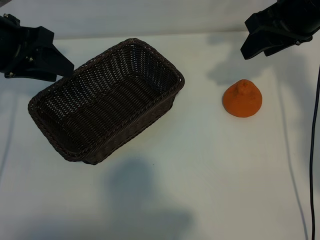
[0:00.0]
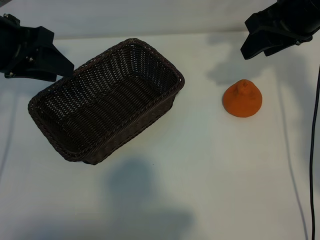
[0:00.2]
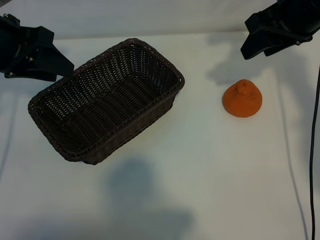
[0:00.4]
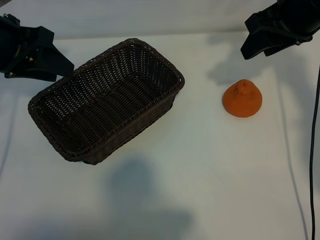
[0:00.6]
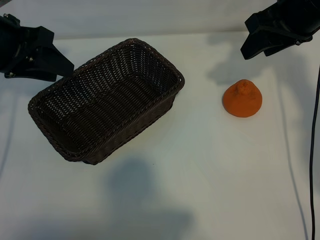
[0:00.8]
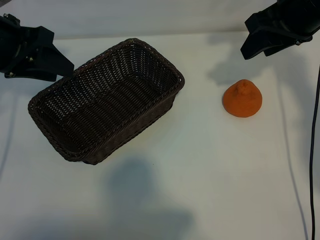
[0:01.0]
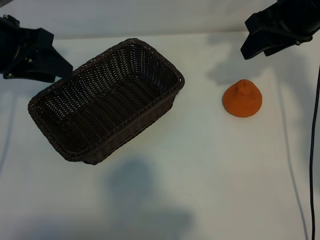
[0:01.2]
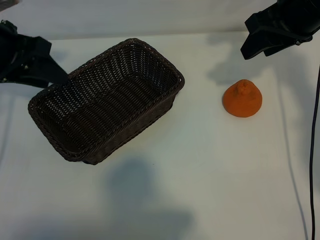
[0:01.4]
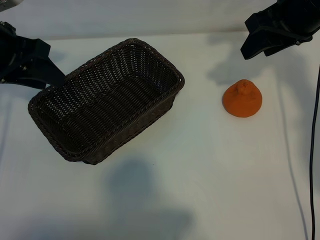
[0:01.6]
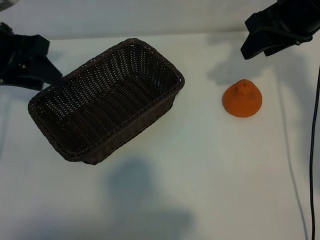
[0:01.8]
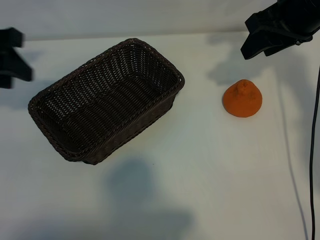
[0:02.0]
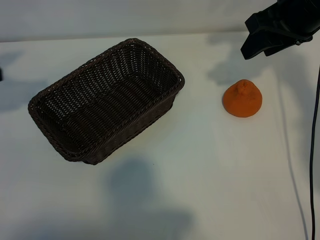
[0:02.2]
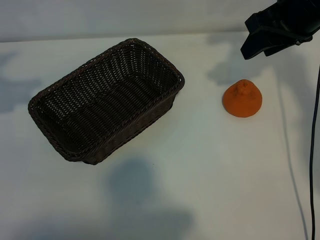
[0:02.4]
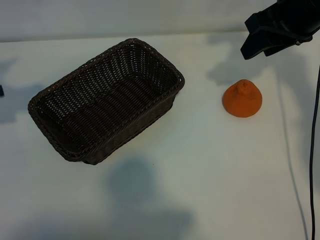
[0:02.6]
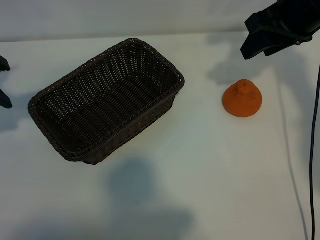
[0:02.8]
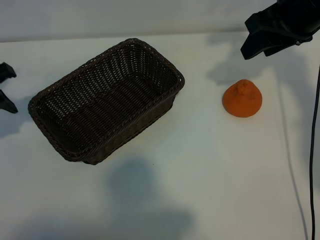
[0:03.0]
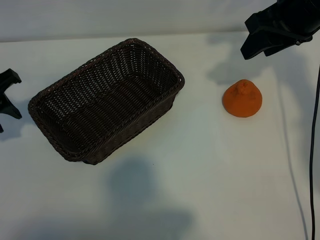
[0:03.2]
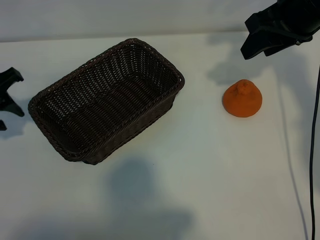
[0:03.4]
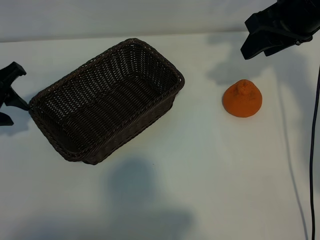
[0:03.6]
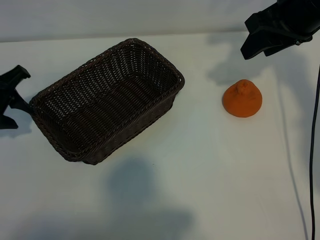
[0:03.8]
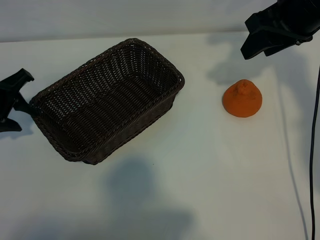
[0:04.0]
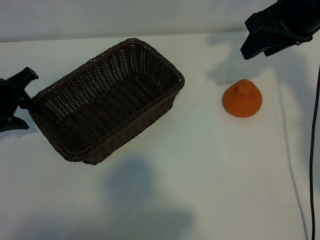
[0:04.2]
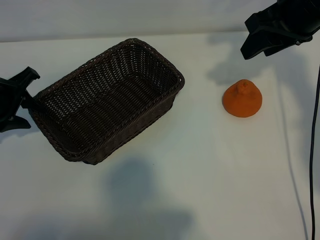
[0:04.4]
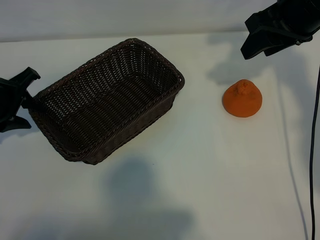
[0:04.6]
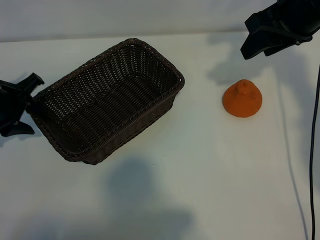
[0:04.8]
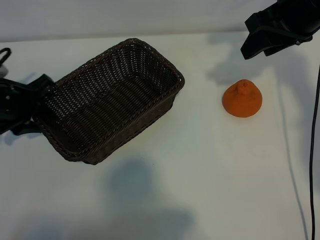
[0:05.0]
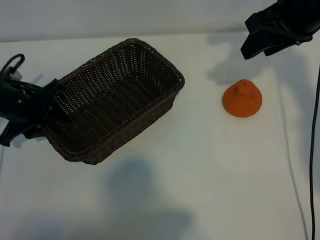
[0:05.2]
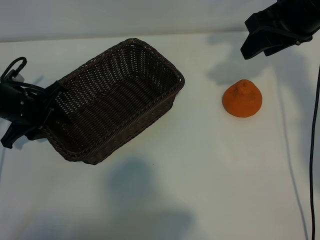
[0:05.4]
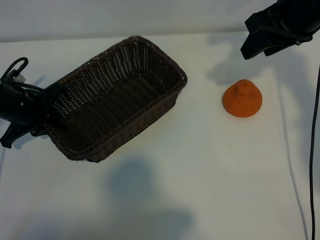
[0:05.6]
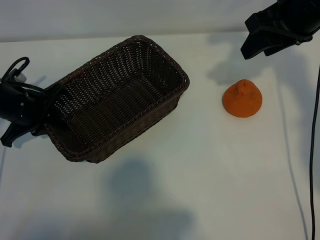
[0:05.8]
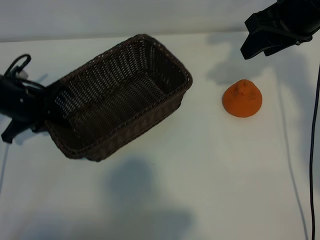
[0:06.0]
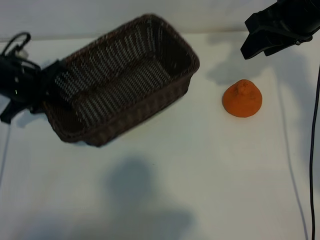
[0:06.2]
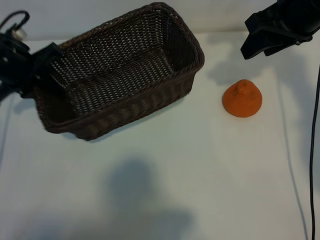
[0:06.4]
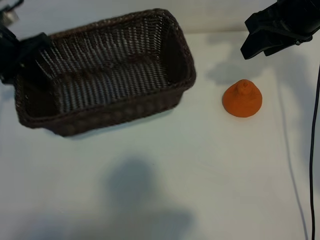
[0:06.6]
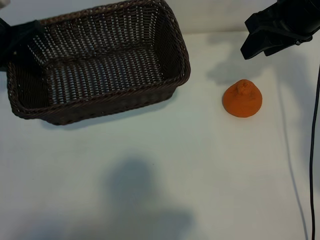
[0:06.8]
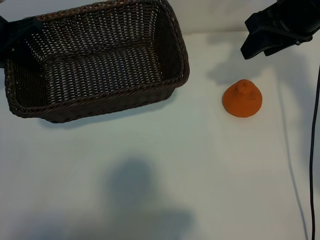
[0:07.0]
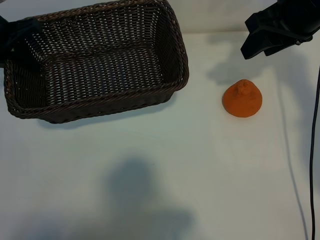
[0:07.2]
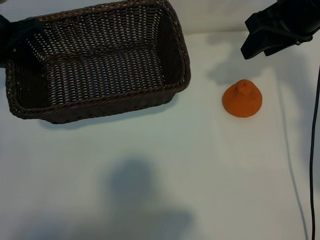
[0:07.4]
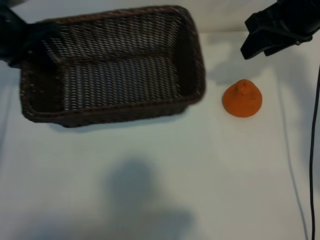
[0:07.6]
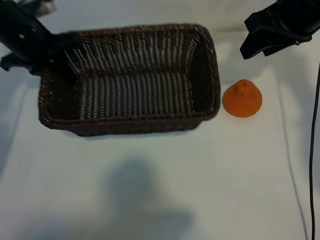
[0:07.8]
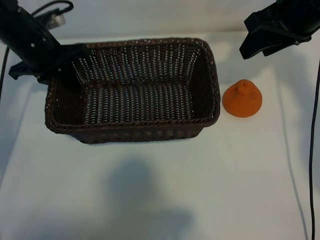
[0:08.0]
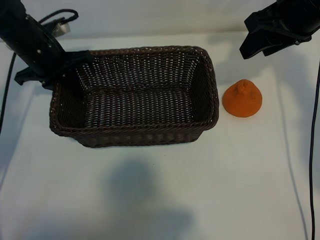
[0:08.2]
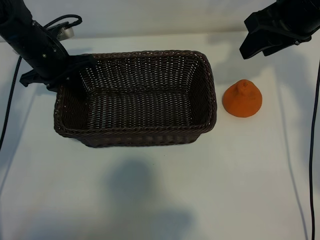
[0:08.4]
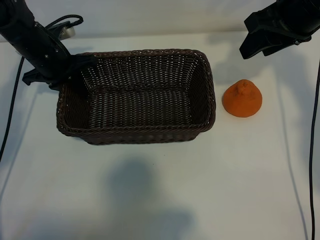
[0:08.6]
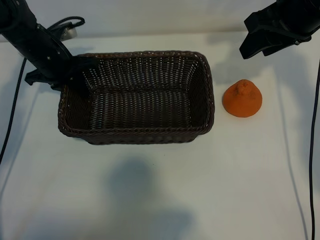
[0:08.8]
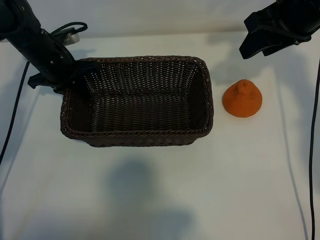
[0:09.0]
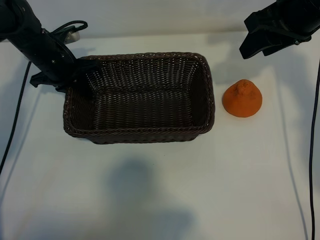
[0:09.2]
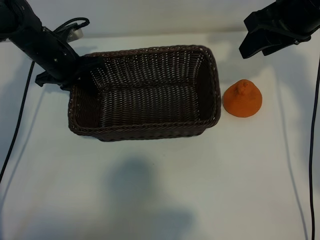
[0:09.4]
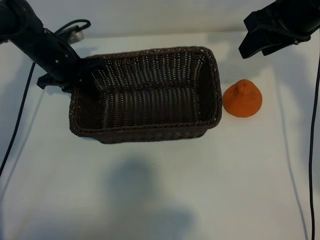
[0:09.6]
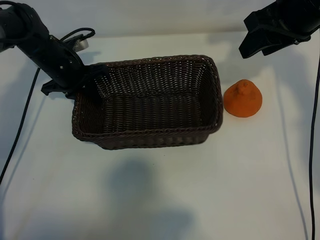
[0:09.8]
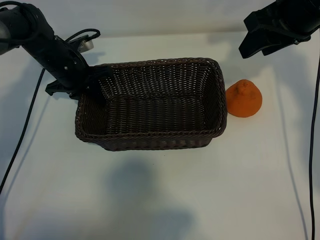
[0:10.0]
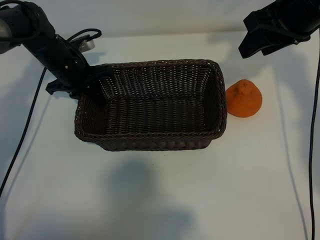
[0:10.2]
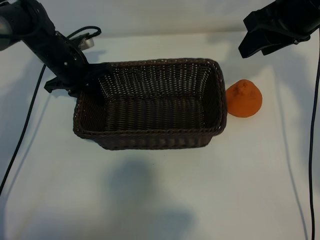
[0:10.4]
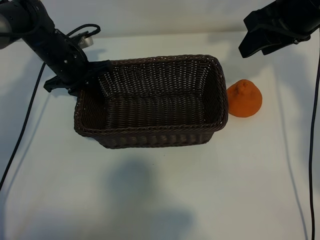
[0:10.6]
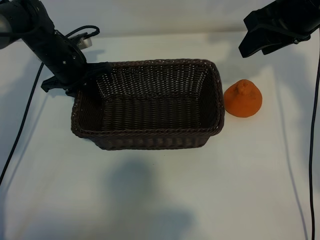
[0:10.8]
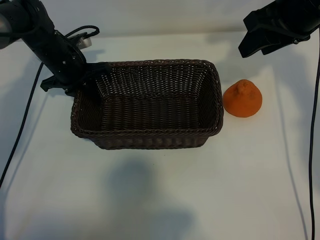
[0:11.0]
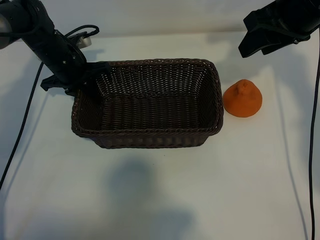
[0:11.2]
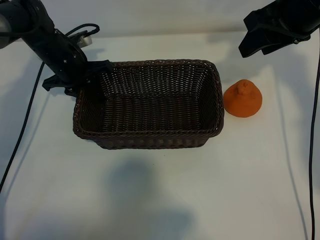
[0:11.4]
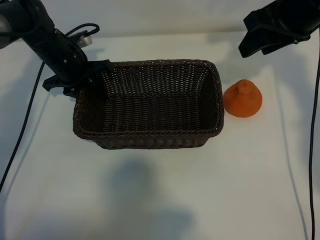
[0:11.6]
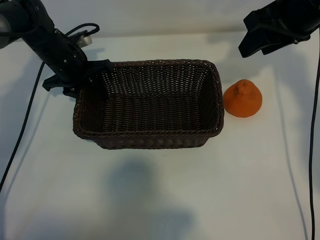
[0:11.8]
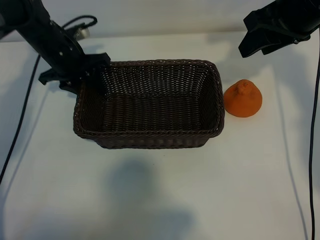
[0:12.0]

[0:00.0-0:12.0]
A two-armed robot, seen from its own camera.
Task of the whole recording: pick up the orange and put it into the basket.
Step, 0:01.2 to 0:05.6: Grasp the basket with left gripper.
Step, 0:05.8 to 0:11.6: Place the basket in the center of view with left gripper.

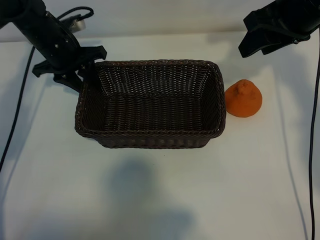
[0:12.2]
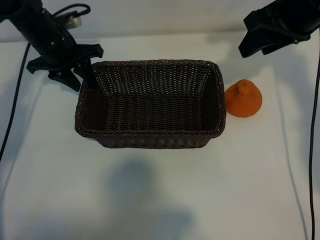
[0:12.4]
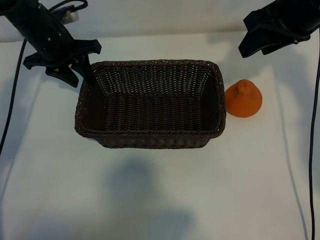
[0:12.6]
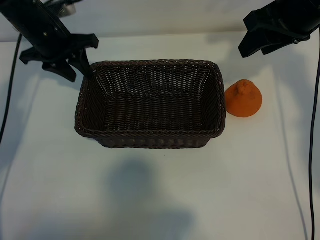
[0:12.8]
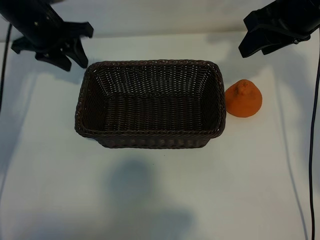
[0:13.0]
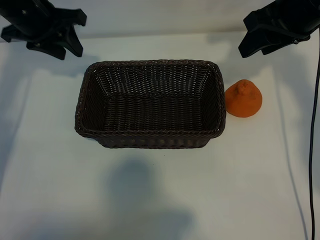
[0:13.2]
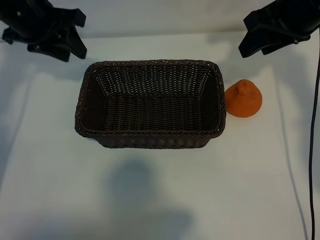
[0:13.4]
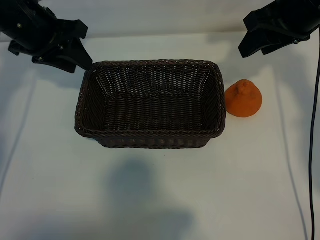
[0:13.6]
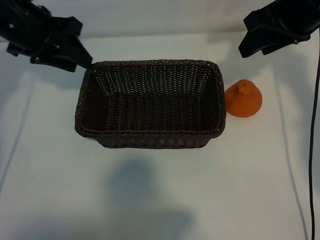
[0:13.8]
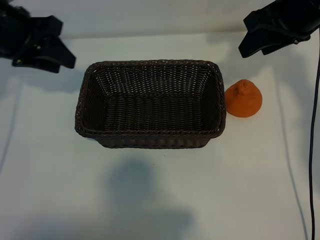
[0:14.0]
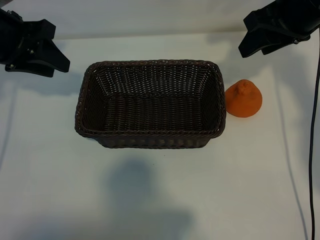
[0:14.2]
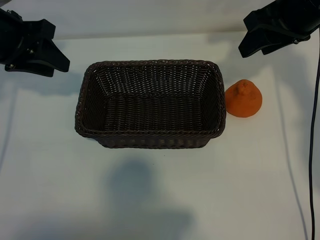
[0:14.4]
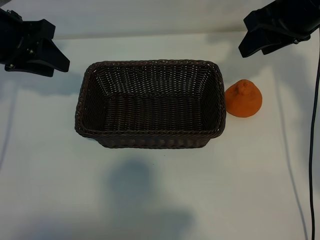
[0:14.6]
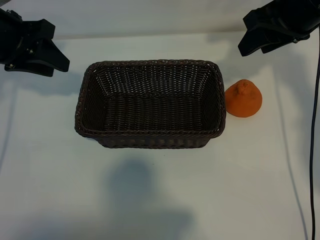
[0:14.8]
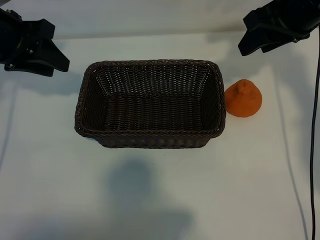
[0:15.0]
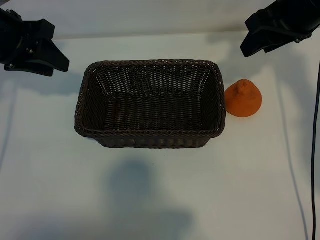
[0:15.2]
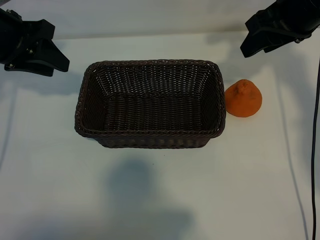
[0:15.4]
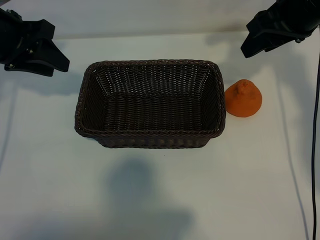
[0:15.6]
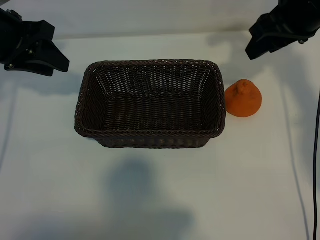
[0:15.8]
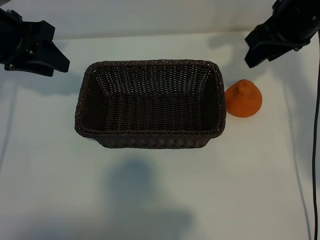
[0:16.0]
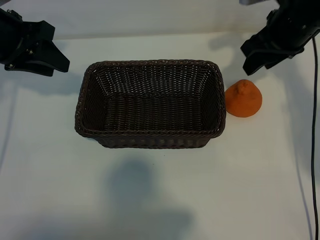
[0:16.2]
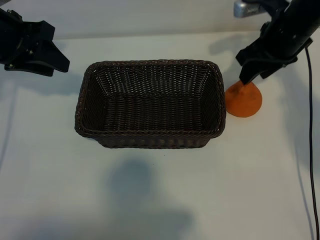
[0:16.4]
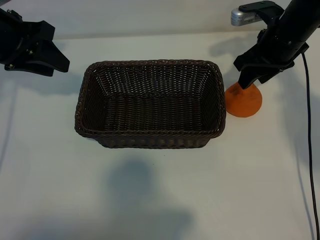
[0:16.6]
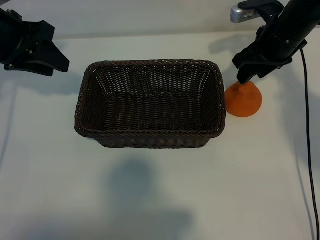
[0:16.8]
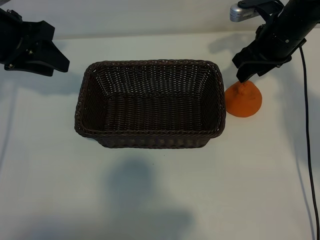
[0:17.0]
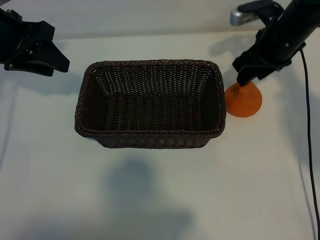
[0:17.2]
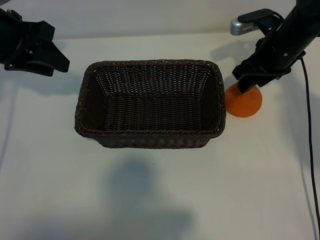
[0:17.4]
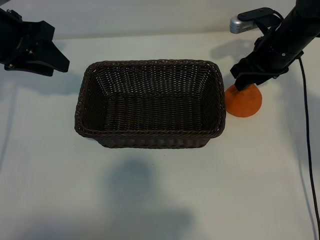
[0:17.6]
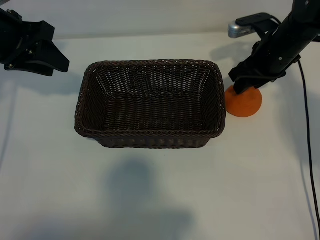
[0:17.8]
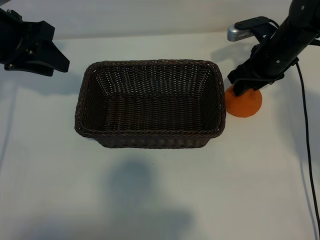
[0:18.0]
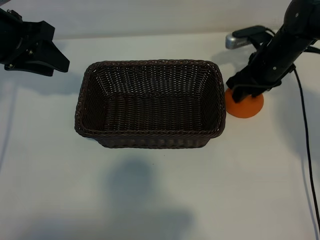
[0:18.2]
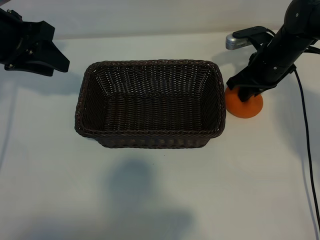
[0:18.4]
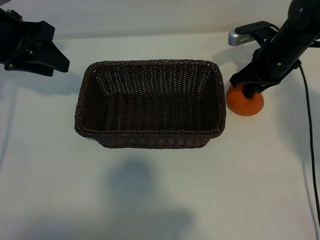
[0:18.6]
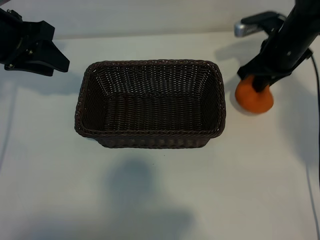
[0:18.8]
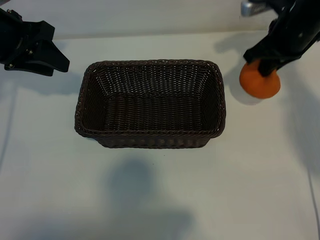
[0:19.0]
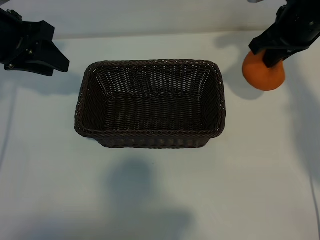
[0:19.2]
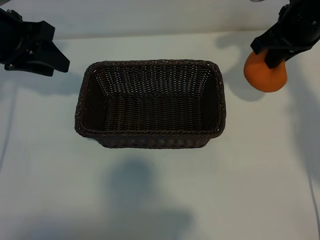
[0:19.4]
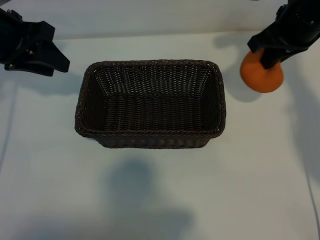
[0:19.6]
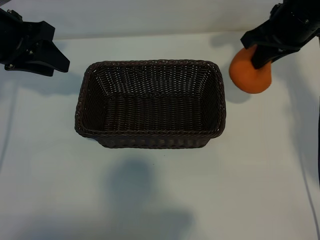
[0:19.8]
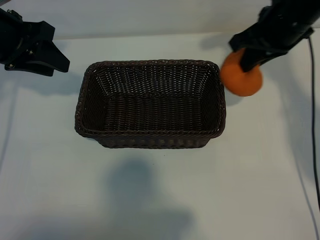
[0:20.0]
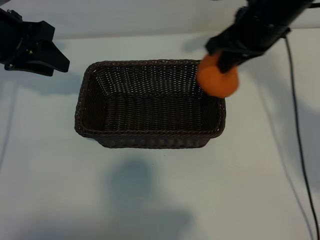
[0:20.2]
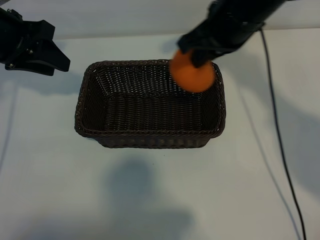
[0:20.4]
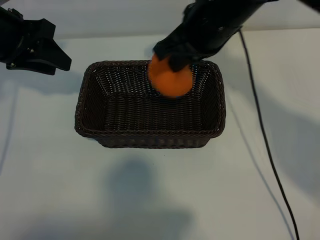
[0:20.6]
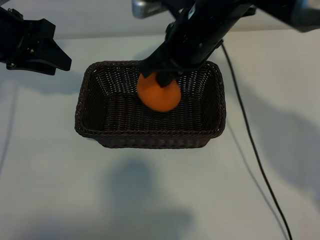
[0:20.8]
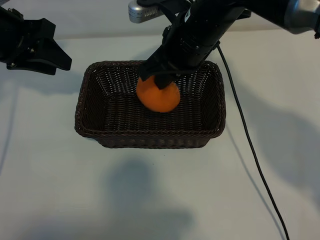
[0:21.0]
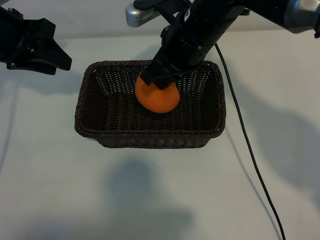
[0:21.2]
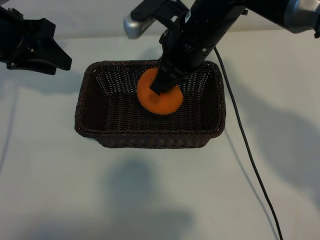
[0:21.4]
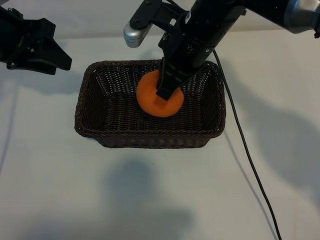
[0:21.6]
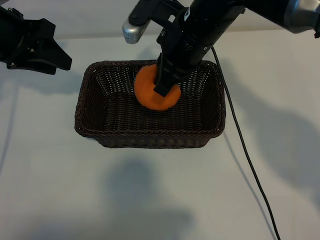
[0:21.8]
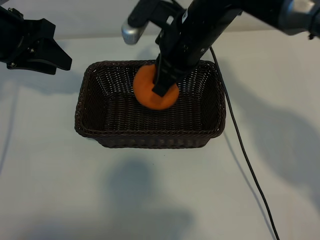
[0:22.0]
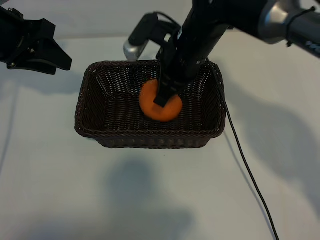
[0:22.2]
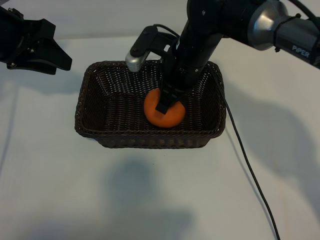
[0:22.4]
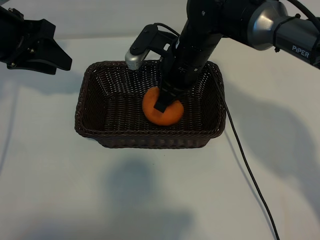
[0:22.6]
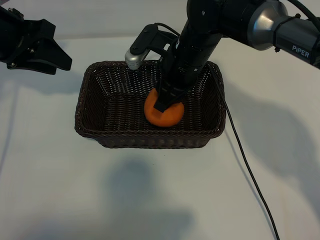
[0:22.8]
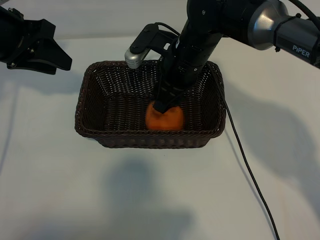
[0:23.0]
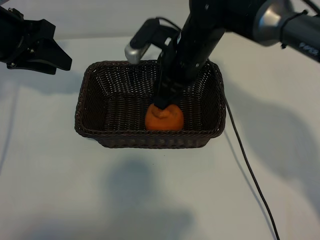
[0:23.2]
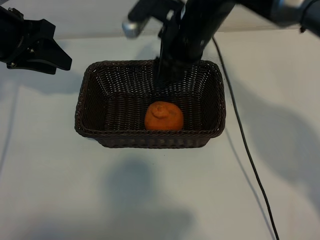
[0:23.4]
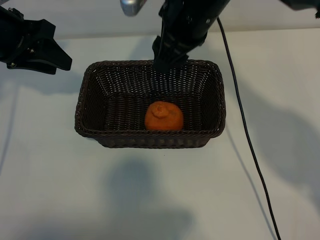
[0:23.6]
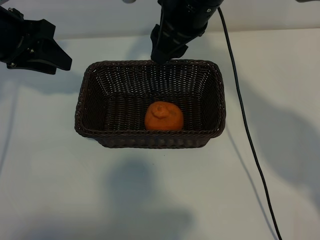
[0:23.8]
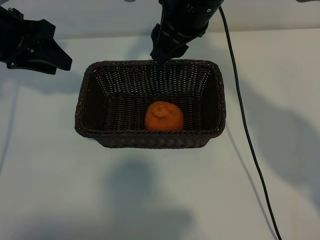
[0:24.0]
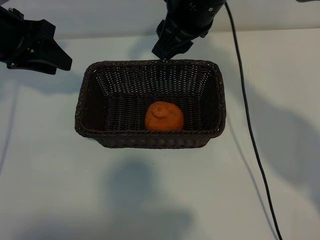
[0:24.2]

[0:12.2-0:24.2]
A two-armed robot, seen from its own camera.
Task of the whole recording: pick up the orange and put it into the basket.
Step, 0:12.2 to 0:18.4: Grasp the orange with right gripper.
Step, 0:18.6 to 0:23.0: Place the orange in the basket with right gripper.
